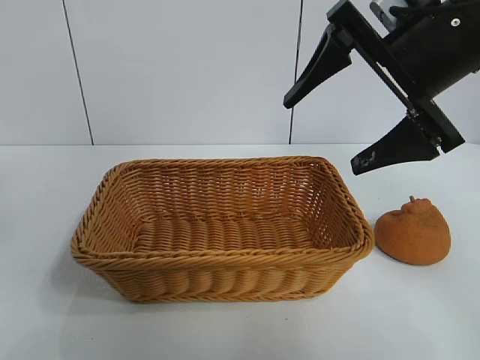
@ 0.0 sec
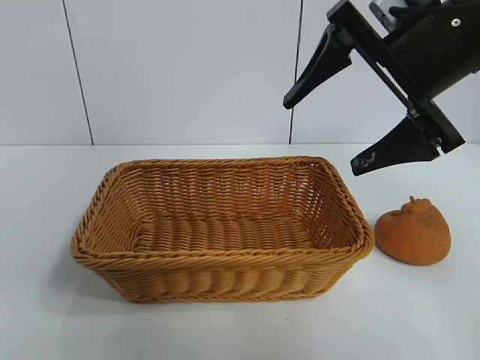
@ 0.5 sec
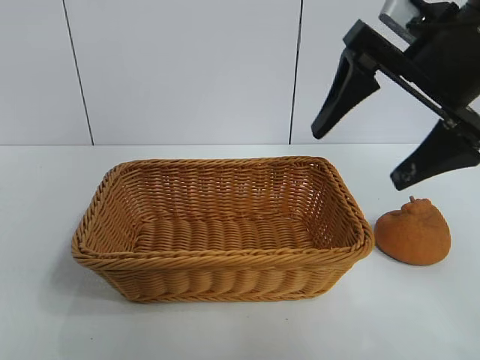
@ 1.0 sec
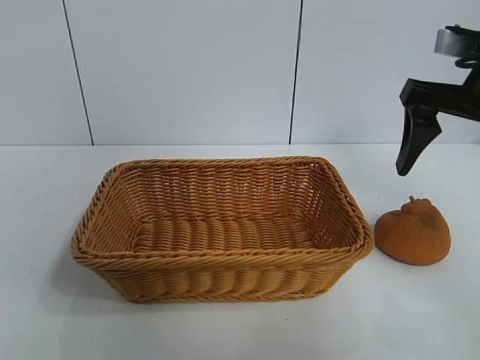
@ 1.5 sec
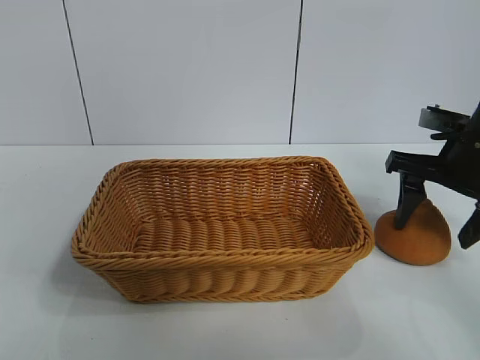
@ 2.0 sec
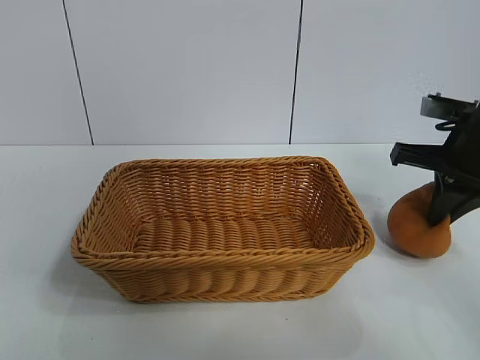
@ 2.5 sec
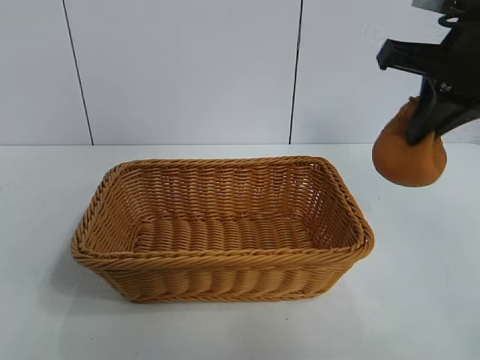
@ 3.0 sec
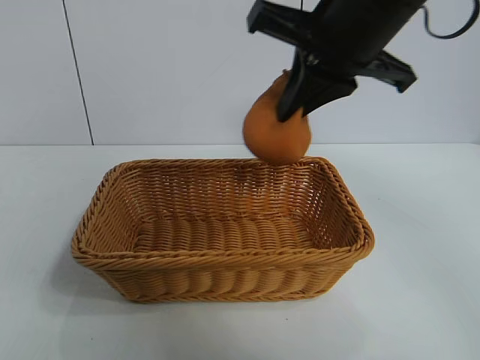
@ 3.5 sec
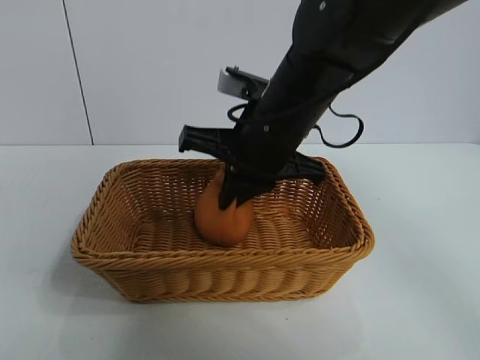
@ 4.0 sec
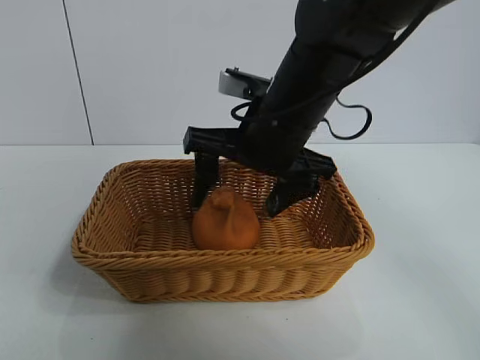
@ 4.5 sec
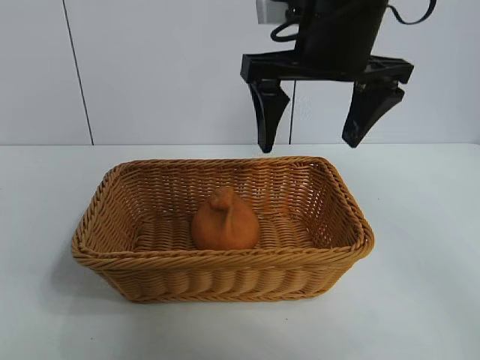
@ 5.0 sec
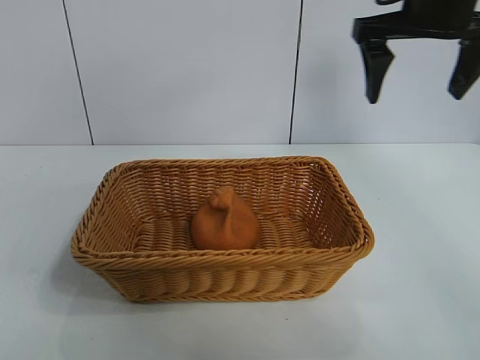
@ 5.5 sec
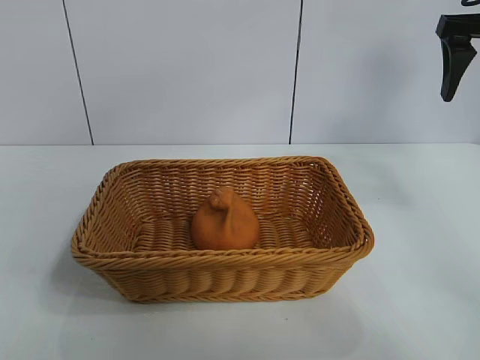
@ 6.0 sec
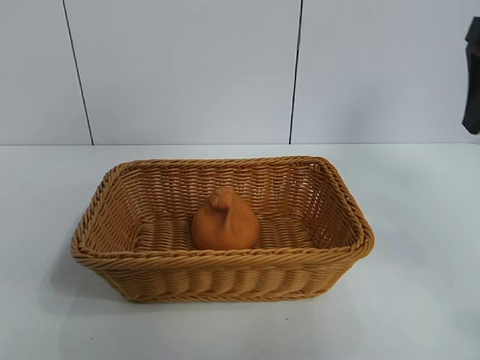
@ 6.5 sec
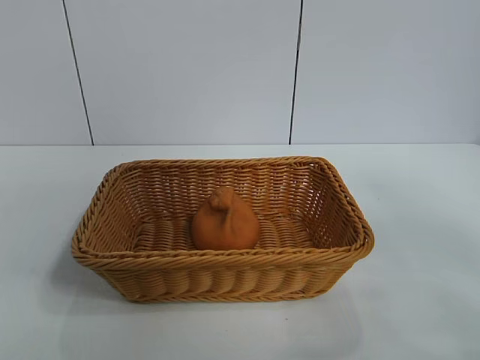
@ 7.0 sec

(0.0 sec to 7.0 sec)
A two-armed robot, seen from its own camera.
Task of the whole recording: pick up the orange and put it into the basket.
Step, 0.0 sec - 2.5 sec: Grasp the orange with right gripper.
Step, 3.0 sec - 4.5 sec: Place the orange in the basket with right gripper.
